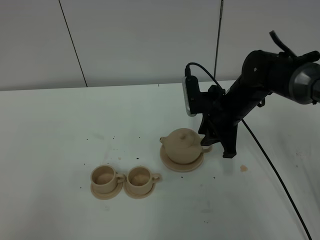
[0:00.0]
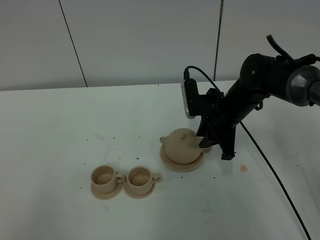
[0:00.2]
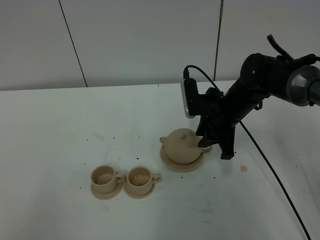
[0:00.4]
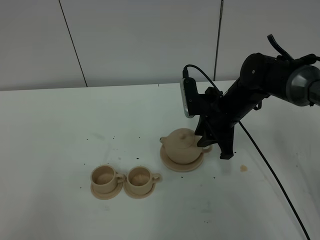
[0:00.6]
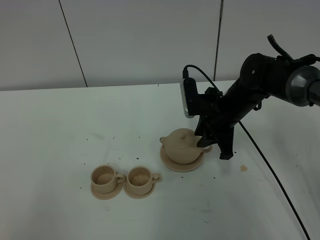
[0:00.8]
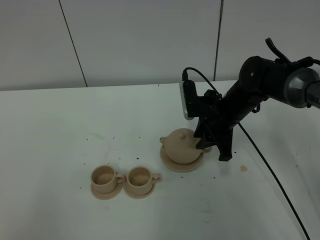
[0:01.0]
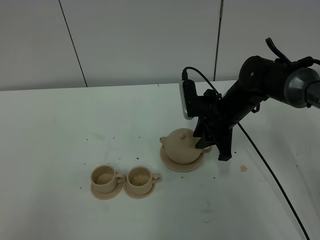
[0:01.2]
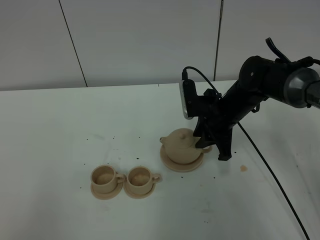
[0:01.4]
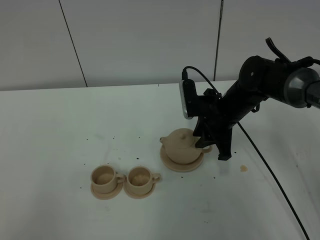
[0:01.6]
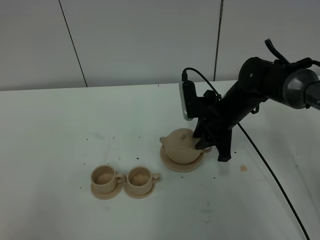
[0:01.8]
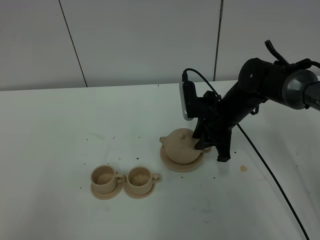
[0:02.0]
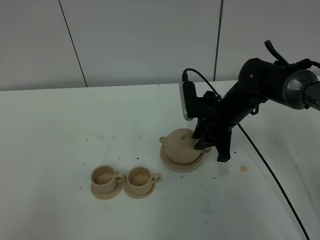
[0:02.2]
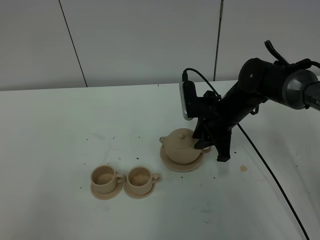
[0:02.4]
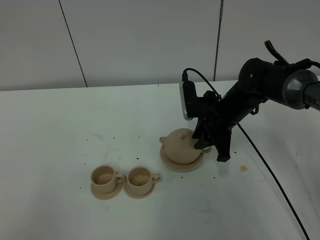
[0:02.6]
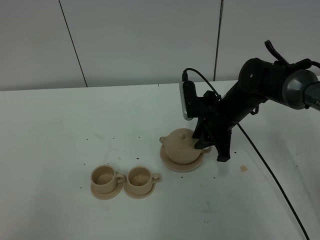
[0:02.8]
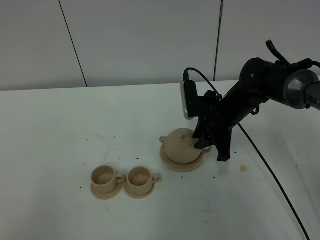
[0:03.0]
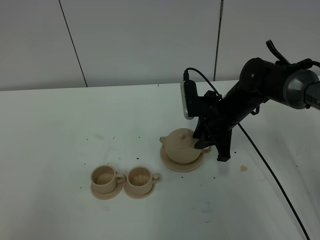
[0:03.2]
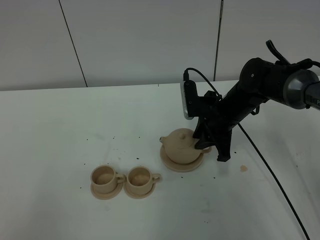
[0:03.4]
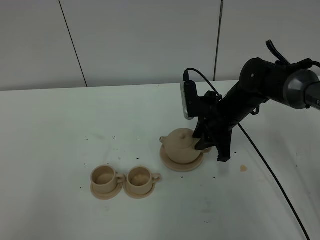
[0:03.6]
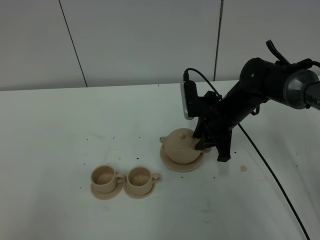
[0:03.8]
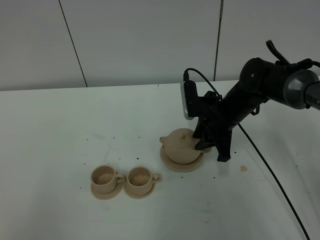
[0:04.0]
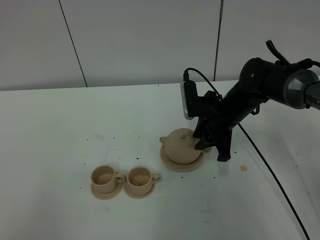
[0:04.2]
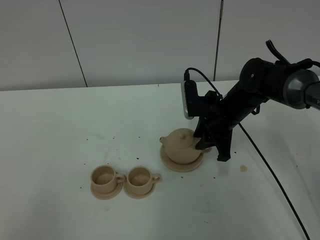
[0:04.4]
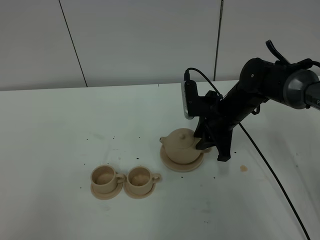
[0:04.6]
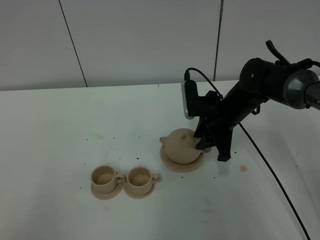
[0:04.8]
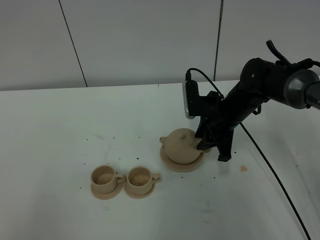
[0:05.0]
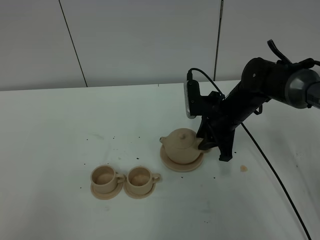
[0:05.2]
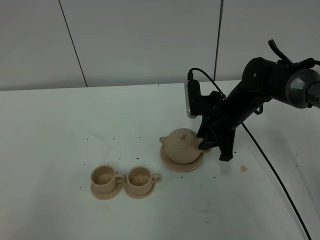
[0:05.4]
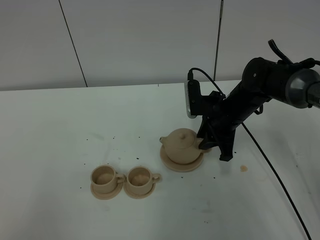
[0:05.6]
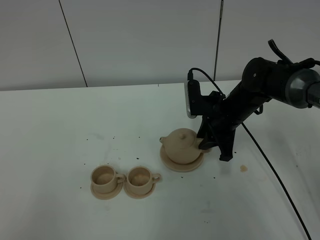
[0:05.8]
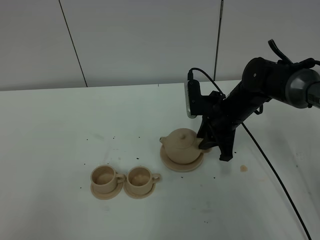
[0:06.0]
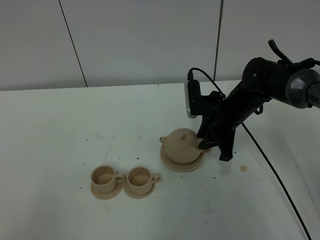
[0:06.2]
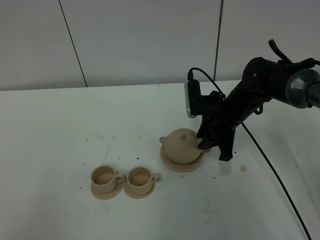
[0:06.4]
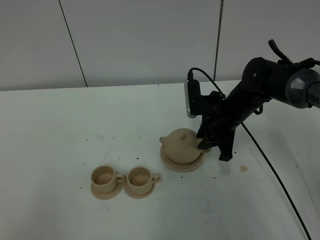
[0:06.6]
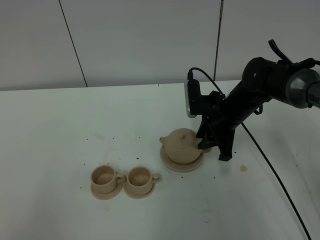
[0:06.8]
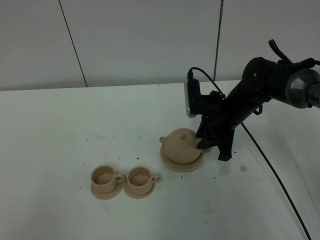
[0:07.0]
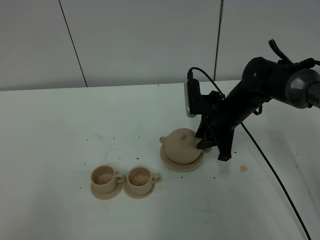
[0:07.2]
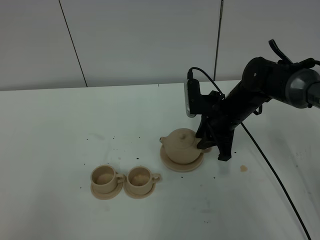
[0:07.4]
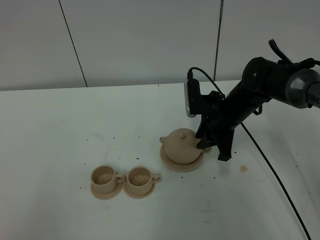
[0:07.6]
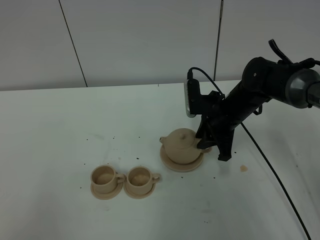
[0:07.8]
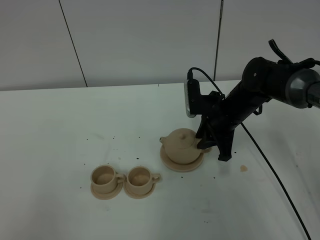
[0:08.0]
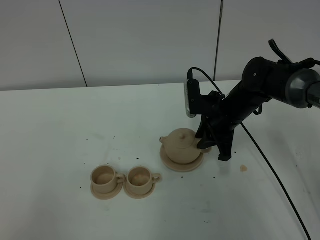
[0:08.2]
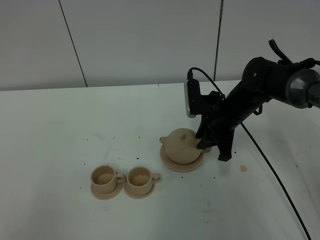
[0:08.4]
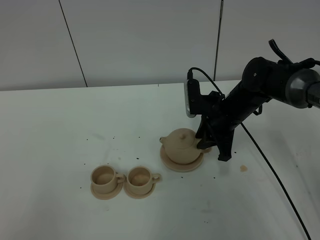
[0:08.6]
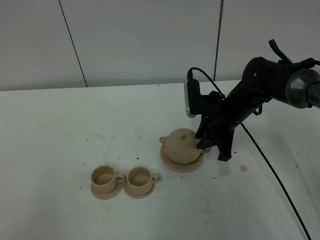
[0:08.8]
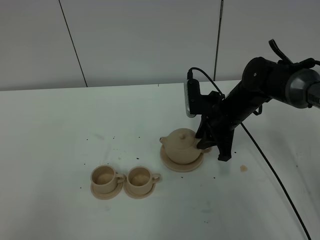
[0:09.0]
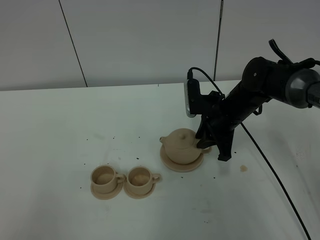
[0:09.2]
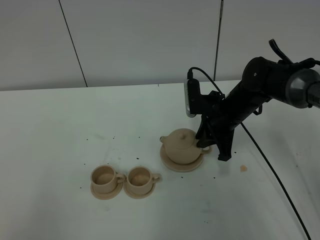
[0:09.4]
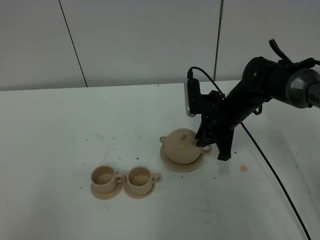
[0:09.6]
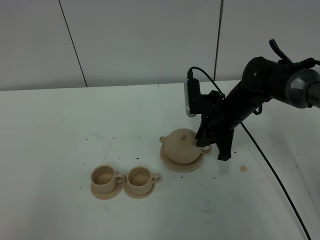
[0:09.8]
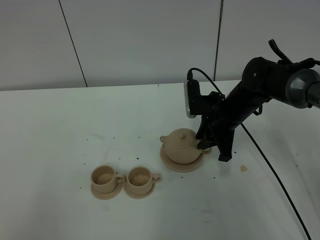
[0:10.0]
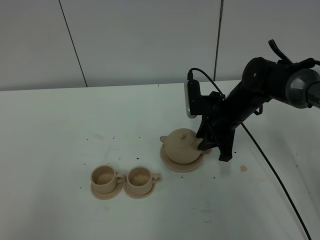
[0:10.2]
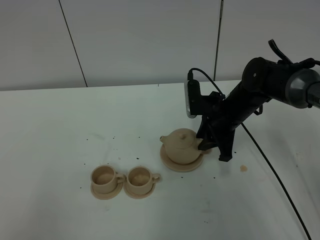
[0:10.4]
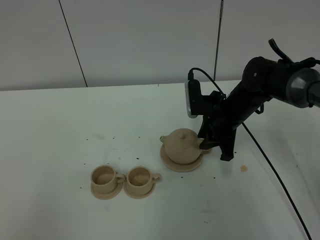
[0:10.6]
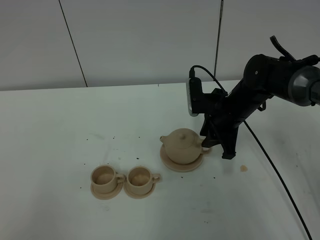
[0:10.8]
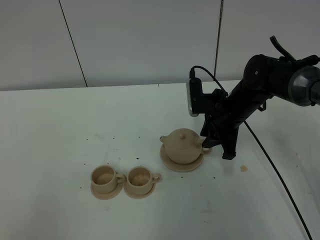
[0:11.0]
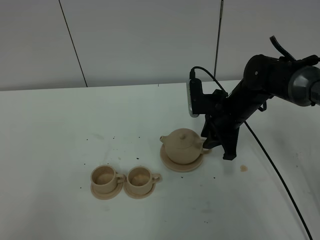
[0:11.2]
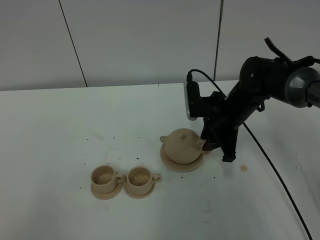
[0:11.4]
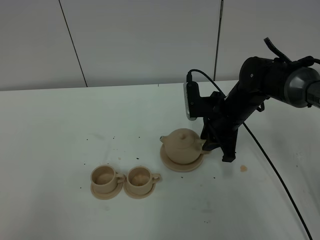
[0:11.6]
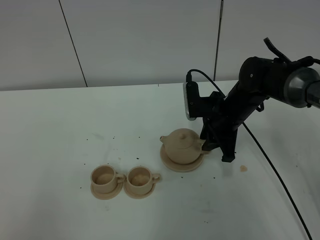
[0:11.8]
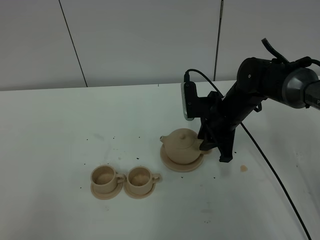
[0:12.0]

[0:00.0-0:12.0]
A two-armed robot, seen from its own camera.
Task of the whole recording: grasp the brown teapot and pour the tea into the two brown teacups one by one, put the brown teapot back in its original place.
0:00.0 to 0:01.6: The two grippers keep their place.
0:01.6 to 0:06.0: Both grippers stay about where they are.
0:06.0 to 0:09.0: Neither gripper changes place.
0:10.4 to 0:12.0: The two grippers keep their place.

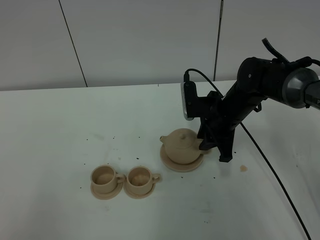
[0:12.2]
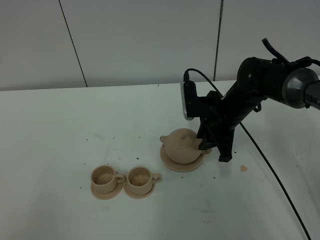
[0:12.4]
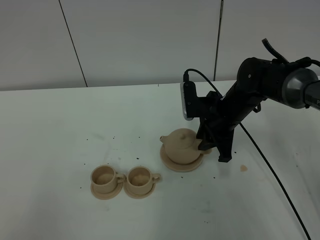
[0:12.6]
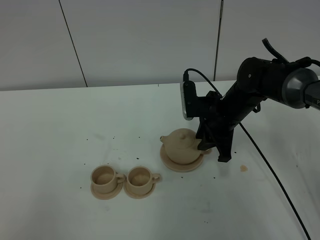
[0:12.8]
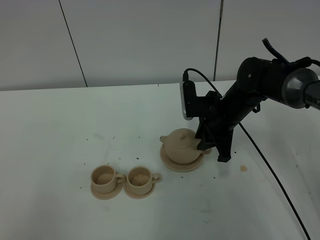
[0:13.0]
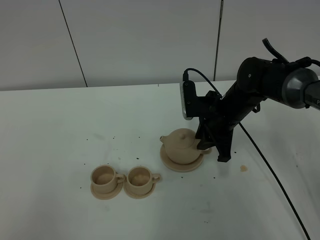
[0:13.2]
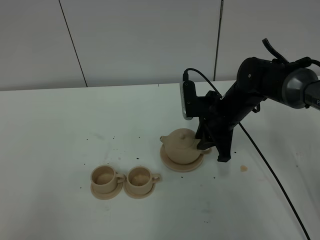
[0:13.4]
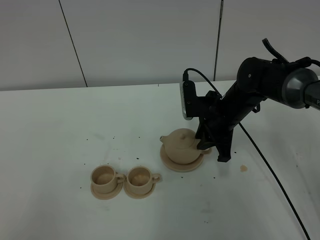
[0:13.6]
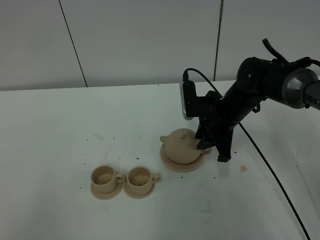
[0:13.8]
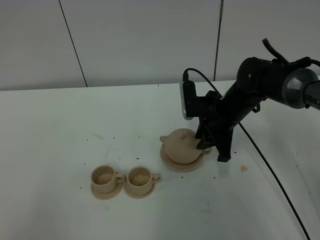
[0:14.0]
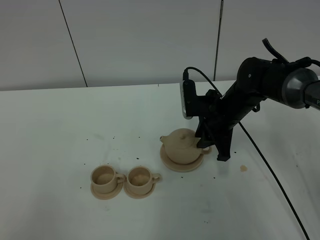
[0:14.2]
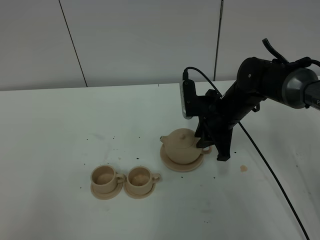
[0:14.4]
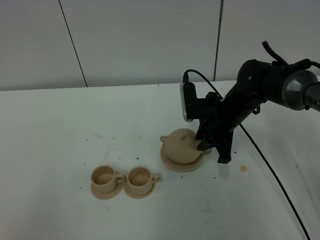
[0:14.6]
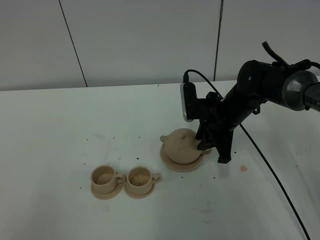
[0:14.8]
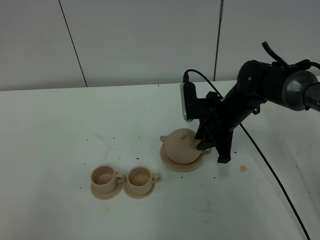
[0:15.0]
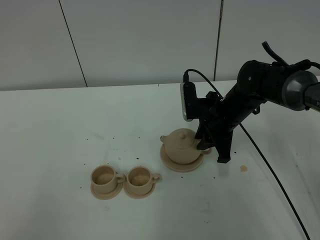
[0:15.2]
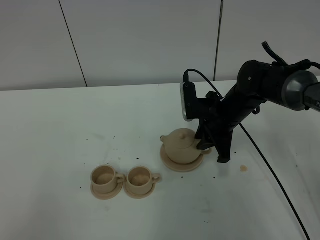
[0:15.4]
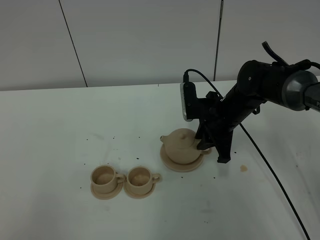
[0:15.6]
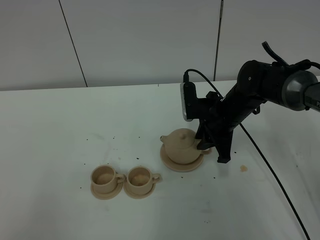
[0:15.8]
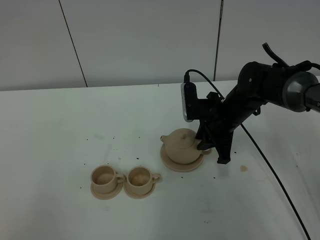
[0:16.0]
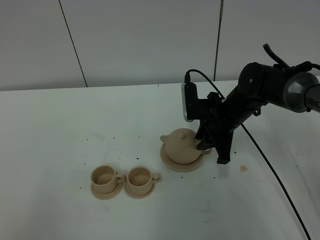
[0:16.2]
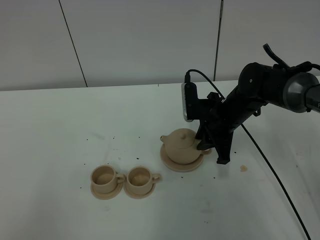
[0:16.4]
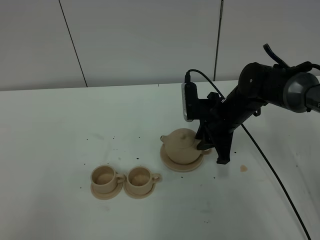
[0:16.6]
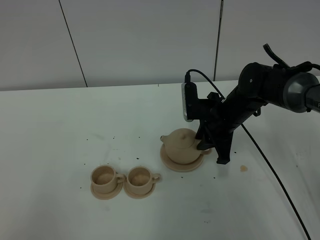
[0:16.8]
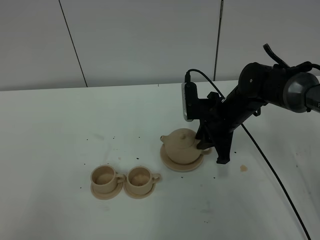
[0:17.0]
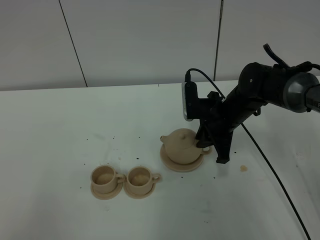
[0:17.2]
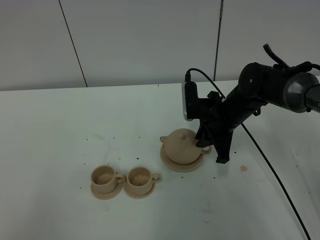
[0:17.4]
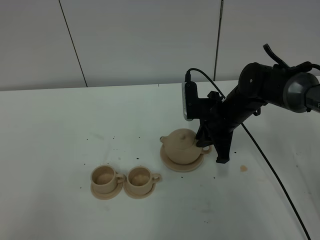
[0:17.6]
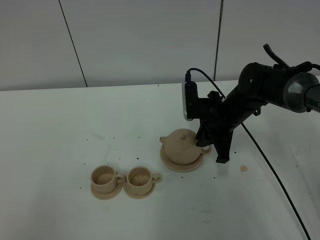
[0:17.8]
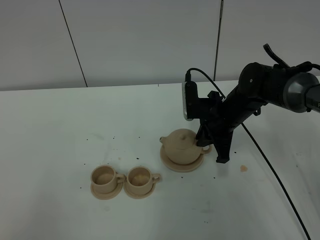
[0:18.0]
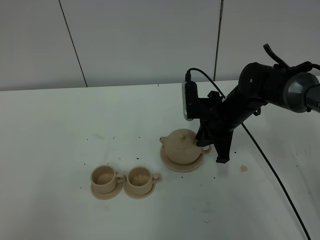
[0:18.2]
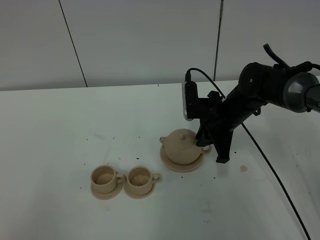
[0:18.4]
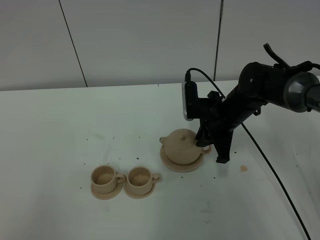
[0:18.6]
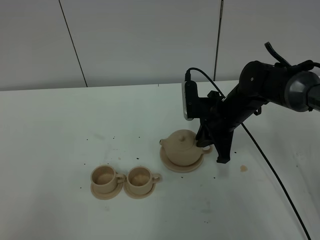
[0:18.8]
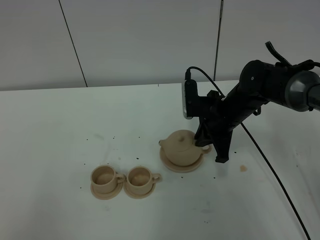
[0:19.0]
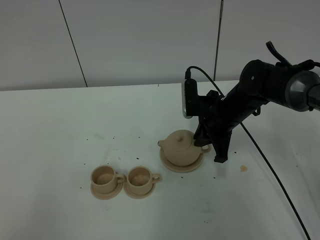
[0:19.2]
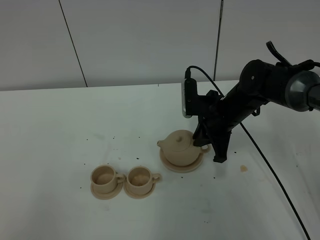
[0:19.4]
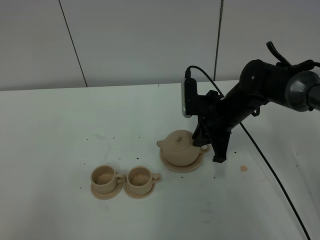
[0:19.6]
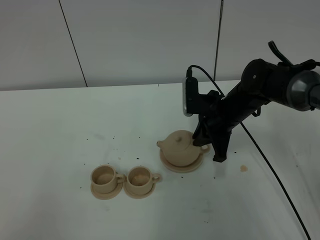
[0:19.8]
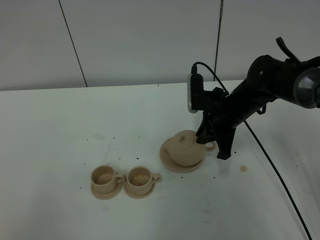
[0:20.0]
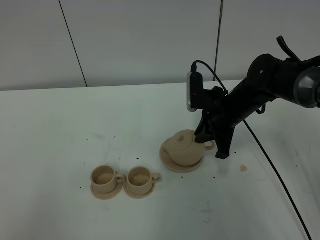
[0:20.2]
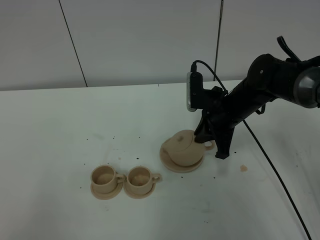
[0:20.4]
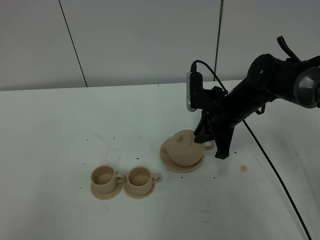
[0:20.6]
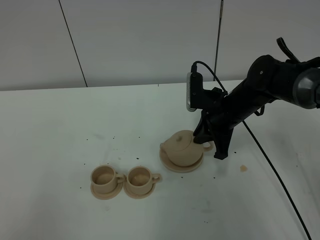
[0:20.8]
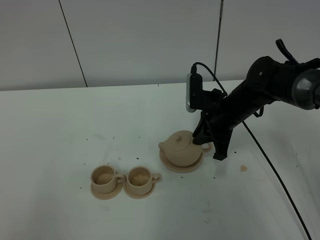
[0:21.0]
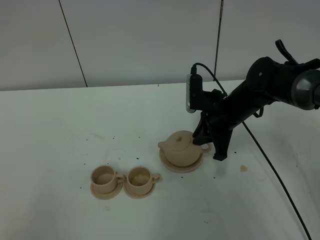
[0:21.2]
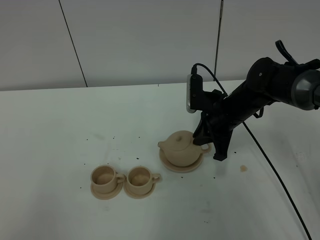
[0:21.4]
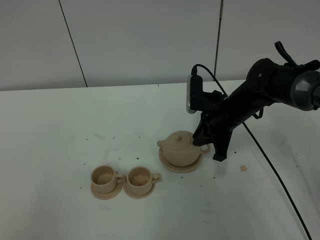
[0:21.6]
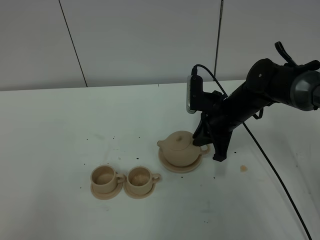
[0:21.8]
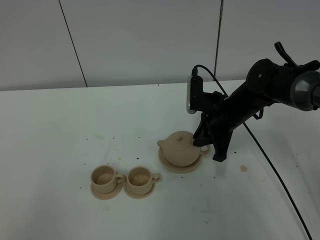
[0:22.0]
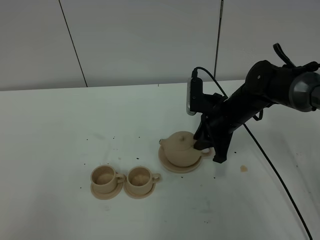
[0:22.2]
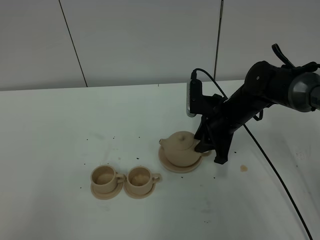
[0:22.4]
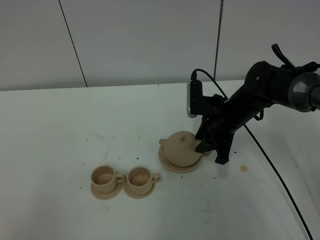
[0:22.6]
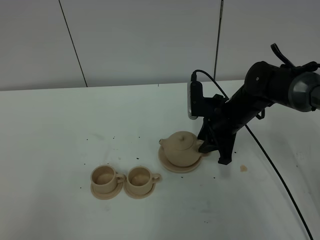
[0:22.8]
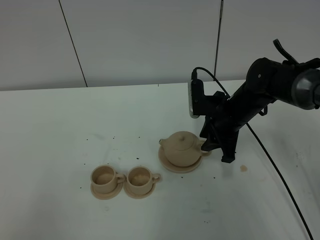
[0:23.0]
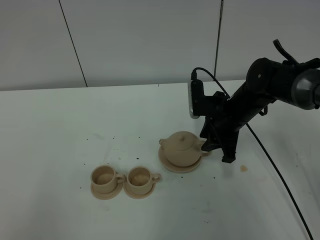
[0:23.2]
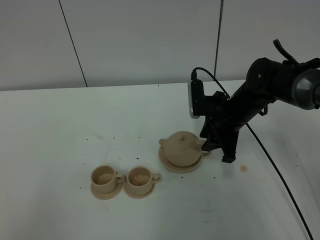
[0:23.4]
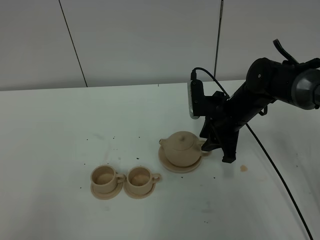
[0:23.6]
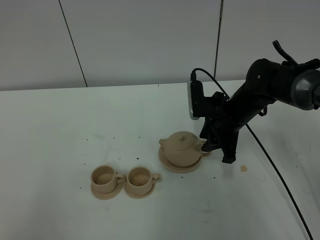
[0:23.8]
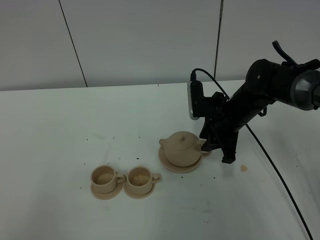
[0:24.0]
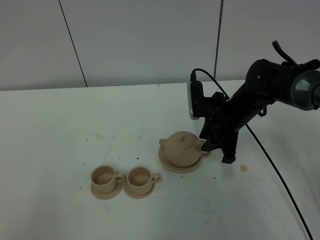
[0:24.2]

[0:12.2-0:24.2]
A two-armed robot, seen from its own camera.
Task of the whole recording: grasp the brown teapot and pour the tea into the two brown teacups one by one, put the brown teapot back in its original place.
0:12.2 to 0:16.6: Both grippers stay put.
0:16.6 to 0:18.2: The right gripper closes.
0:18.2 to 0:19.8: The grippers move only a little.
0:19.8 to 0:21.2: Both grippers stay about where they are.
0:21.2 to 0:22.6: The right gripper opens.
0:22.6 to 0:24.2: The grippers stay close to where they were, moving slightly.
